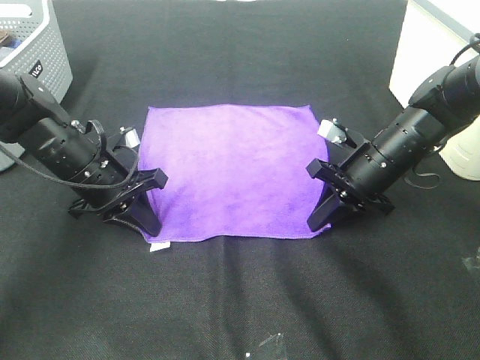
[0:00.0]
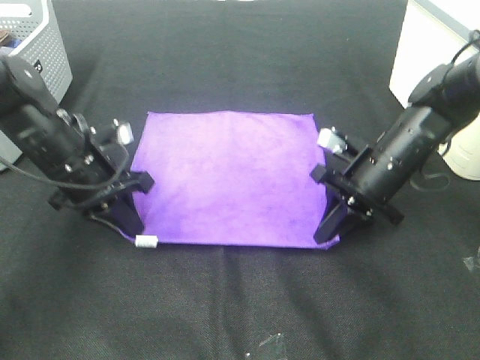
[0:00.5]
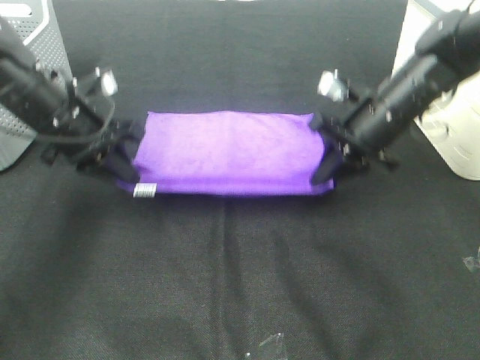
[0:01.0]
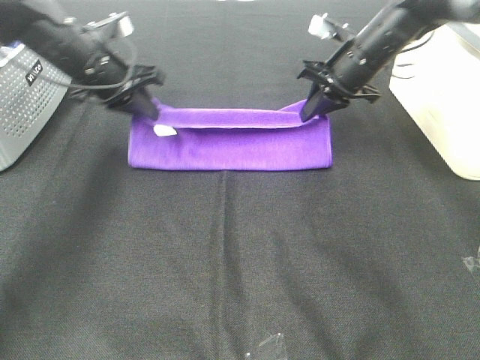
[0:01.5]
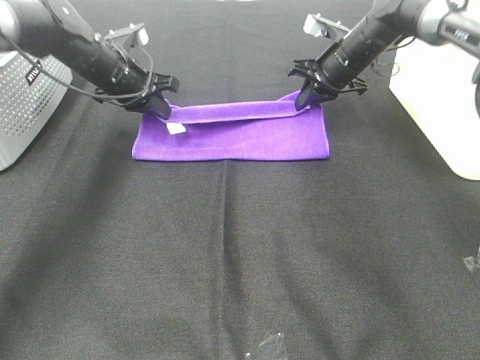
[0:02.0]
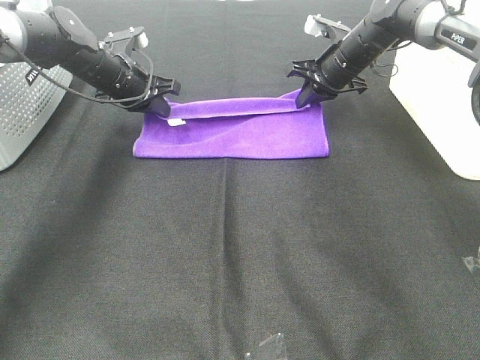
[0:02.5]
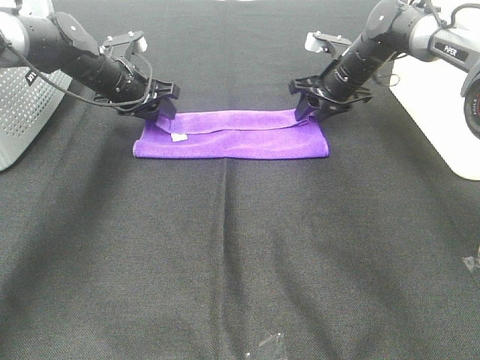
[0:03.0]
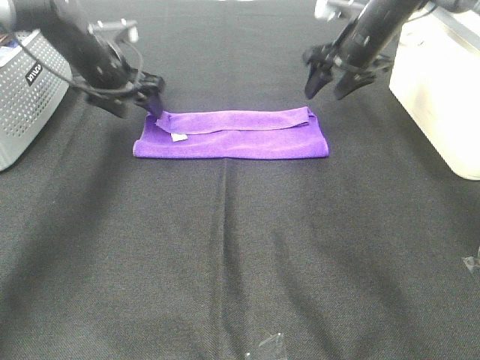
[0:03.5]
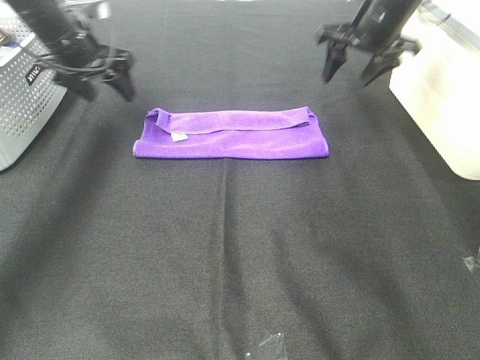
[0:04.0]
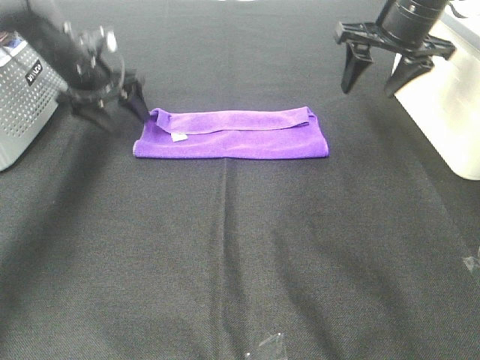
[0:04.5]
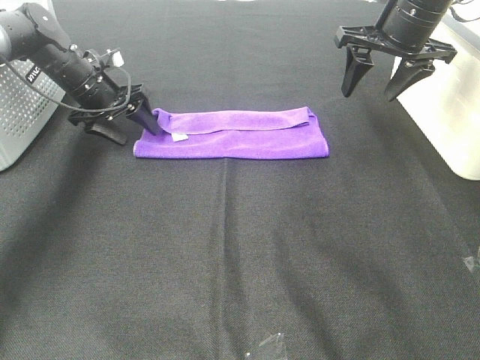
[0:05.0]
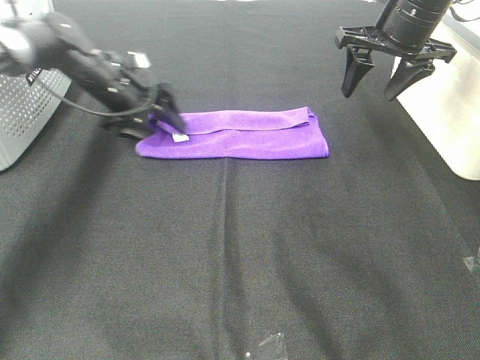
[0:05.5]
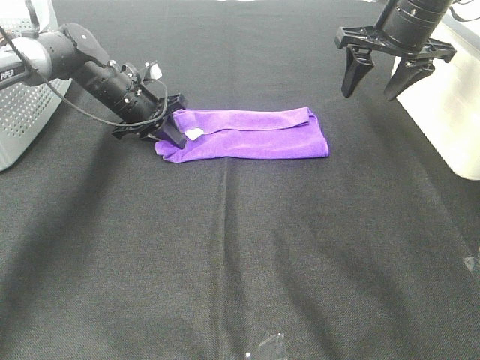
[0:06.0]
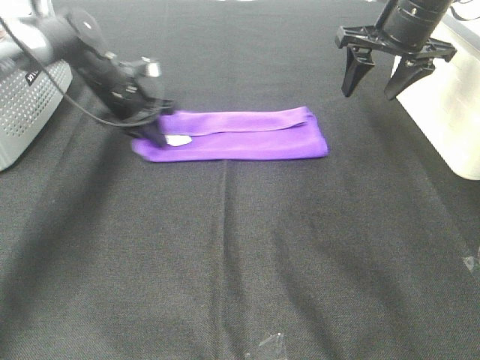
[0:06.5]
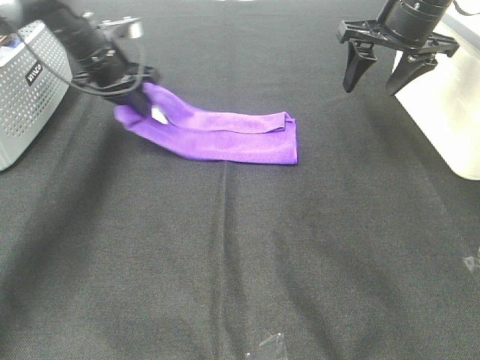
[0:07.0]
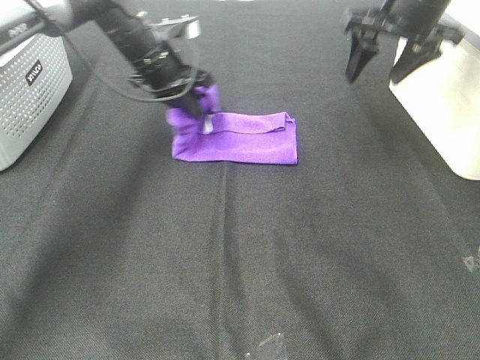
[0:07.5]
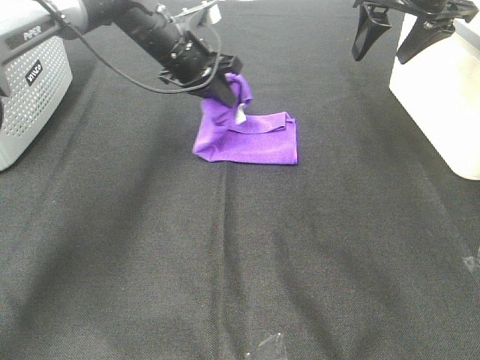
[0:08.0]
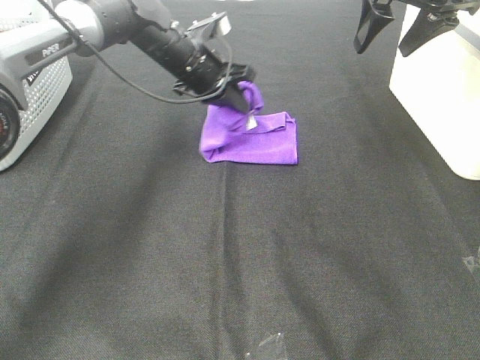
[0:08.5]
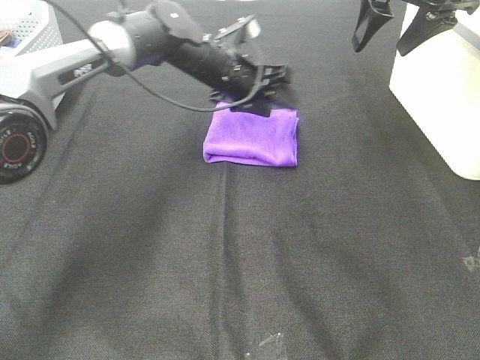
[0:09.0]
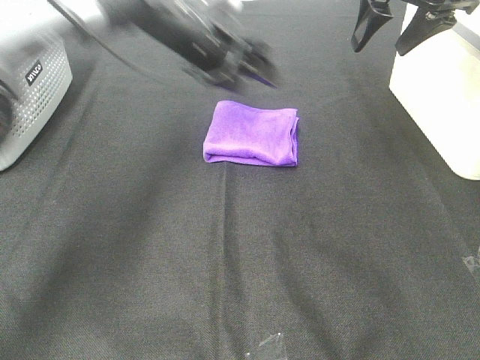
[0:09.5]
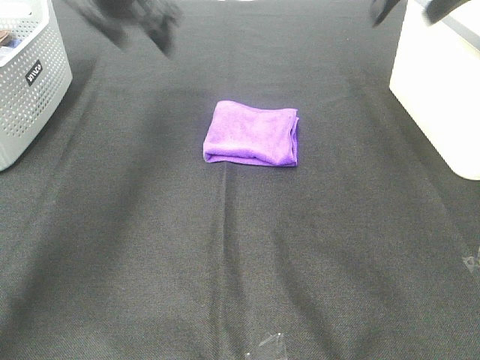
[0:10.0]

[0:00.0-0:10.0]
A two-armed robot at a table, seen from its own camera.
Task of the whole recording: Fold towels.
Step, 0:00.5 to 0:02.5: Left hand: fold the purple towel up.
Step, 0:00.5 to 0:02.5: Right hand: fold the purple towel up.
Step, 0:03.0 to 0:08.5: Left hand: fold the purple towel from left to right.
0:00.0 to 0:02.0: The grippers both shift forward by approximately 15 cm.
0:02.0 to 0:04.0: The left gripper travels upward and to the left by some 10 cm, and opens up. The right gripper heads upward, covering some 10 cm, and opens.
0:04.0 to 0:06.0: The left gripper is displaced downward and to the right by about 15 cm, and closes up; the right gripper heads backward, covering roughly 5 cm.
0:06.0 to 0:08.0: The left gripper travels upward and to the right by about 15 cm. Meanwhile the right gripper moves upward, roughly 5 cm.
0:08.0 to 0:10.0: The right gripper heads upward, covering approximately 5 cm. The left gripper heads upward and to the left, covering roughly 15 cm, and opens its fingers.

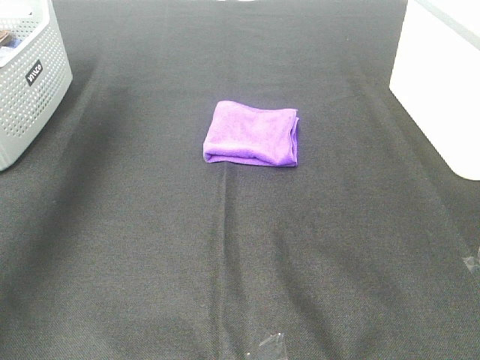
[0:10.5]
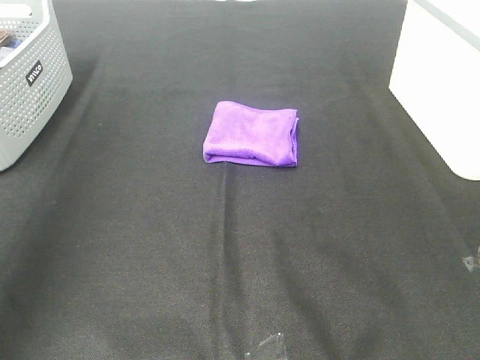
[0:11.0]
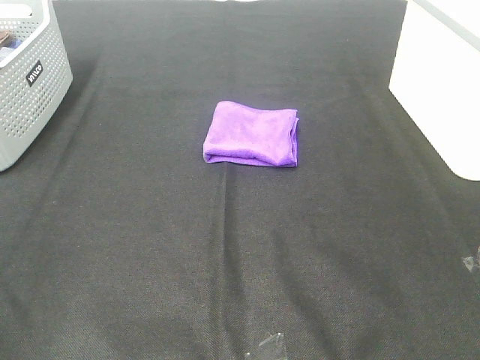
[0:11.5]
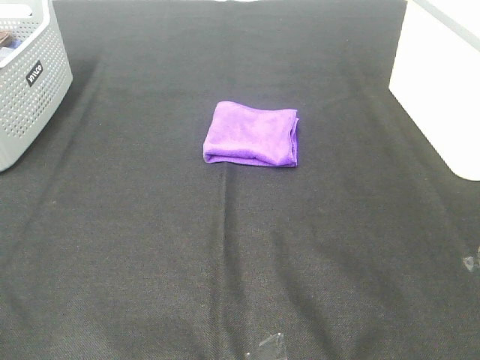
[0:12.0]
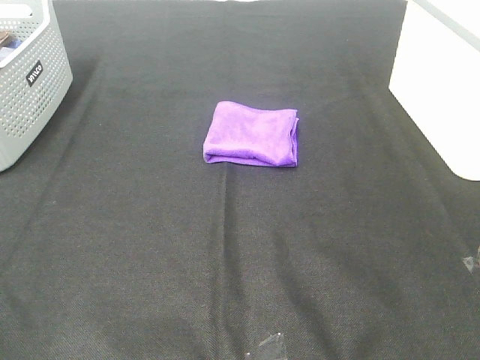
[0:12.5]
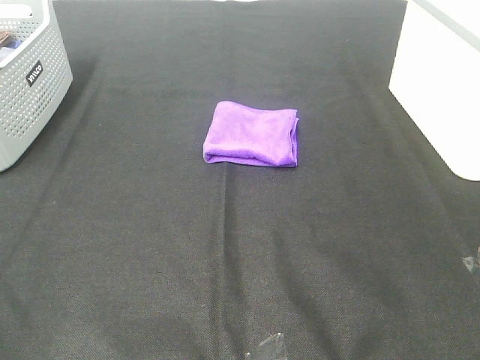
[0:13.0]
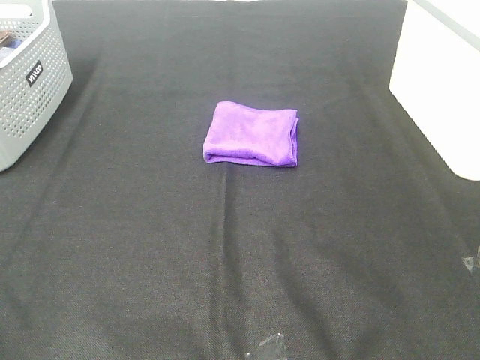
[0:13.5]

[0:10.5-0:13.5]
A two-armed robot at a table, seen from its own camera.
Task of the whole recording: Fold towels.
0:10.5 to 0:12.0: The left gripper heads backward, covering roughly 40 cm.

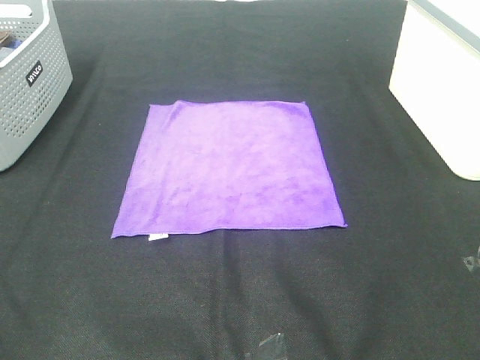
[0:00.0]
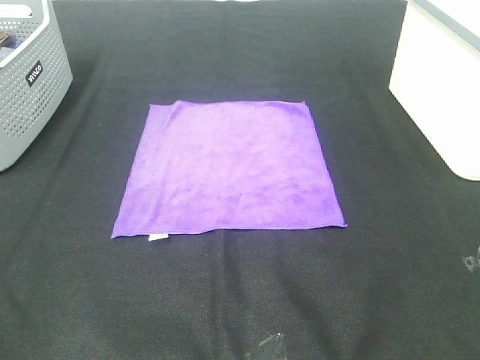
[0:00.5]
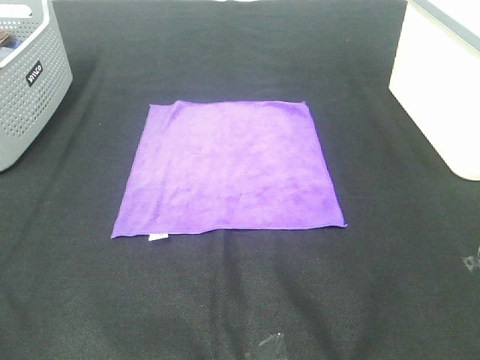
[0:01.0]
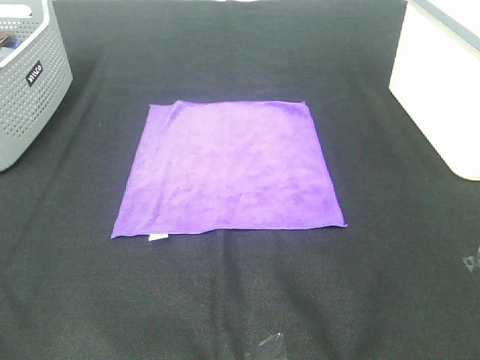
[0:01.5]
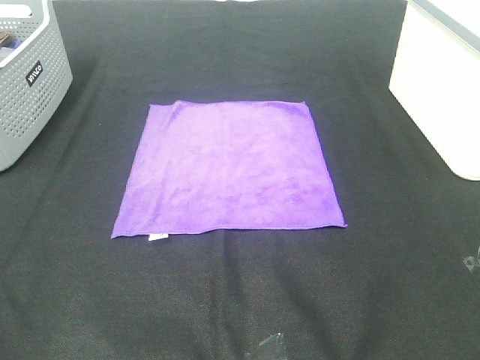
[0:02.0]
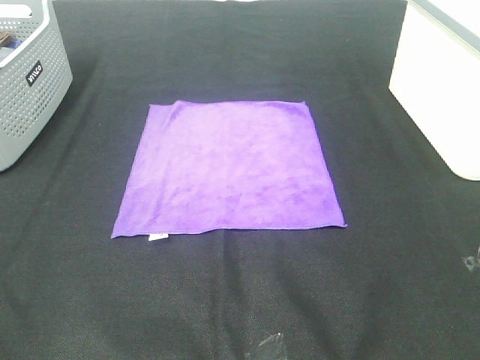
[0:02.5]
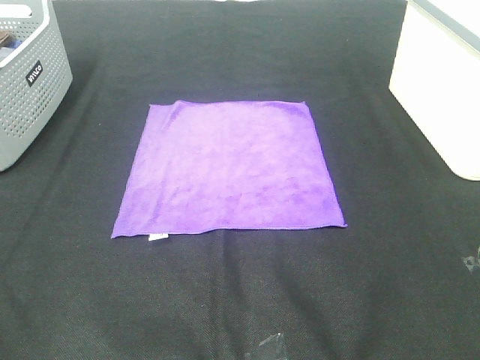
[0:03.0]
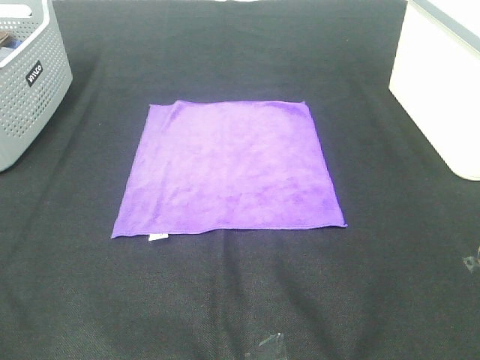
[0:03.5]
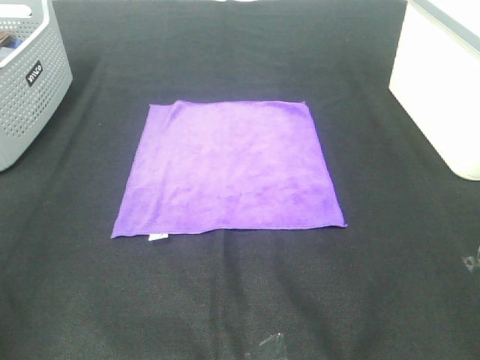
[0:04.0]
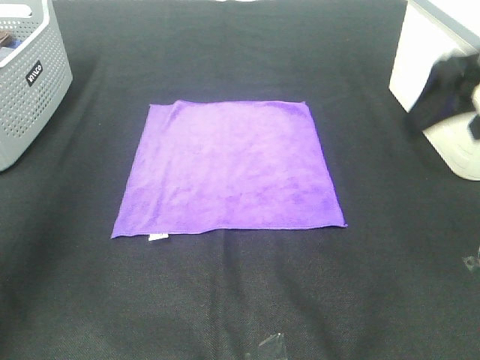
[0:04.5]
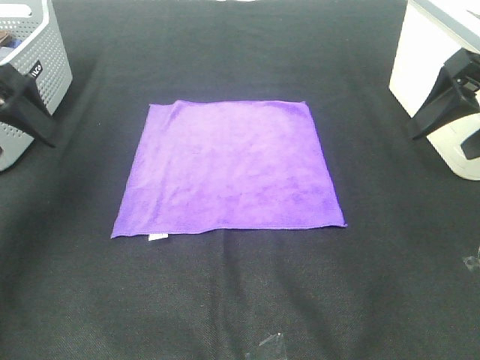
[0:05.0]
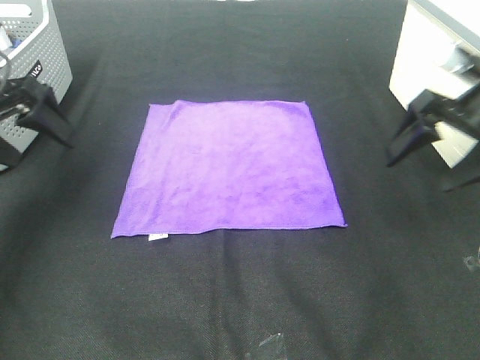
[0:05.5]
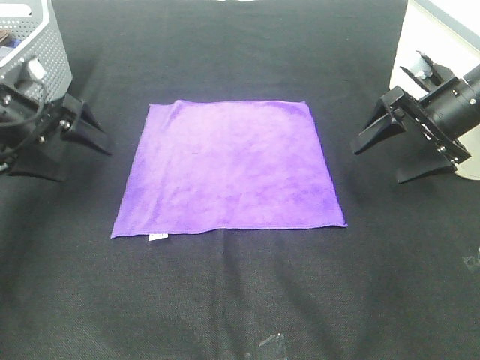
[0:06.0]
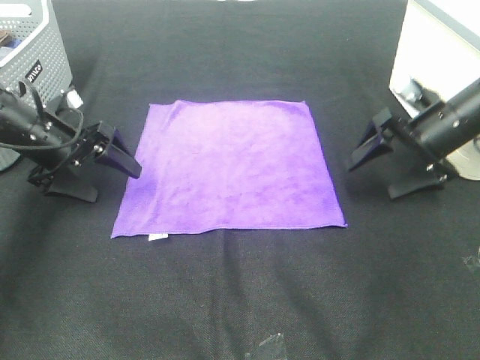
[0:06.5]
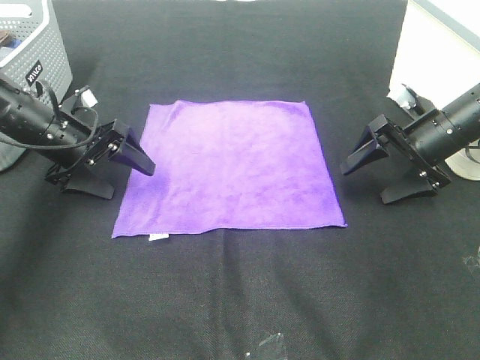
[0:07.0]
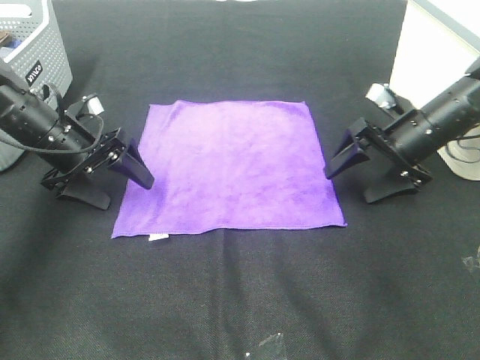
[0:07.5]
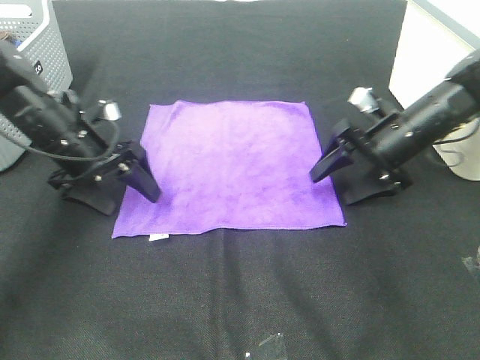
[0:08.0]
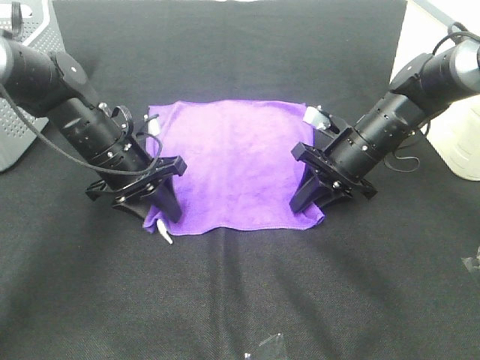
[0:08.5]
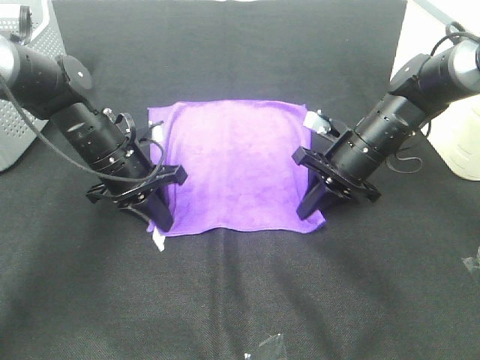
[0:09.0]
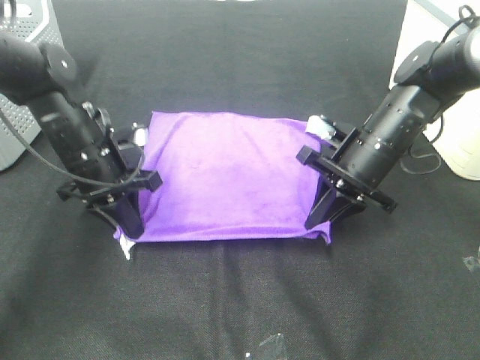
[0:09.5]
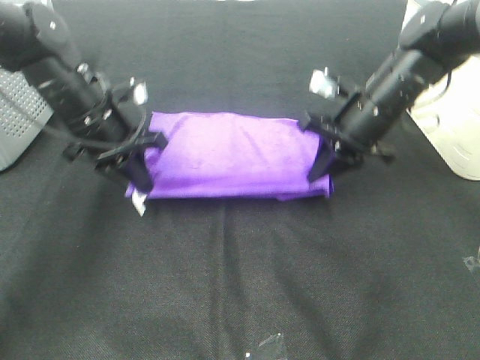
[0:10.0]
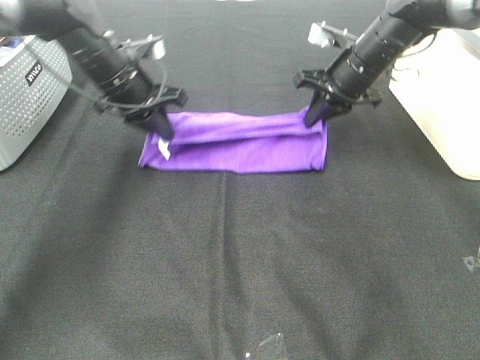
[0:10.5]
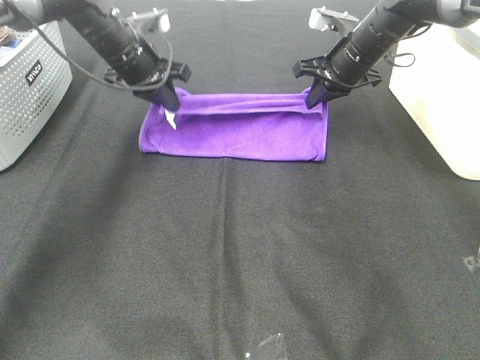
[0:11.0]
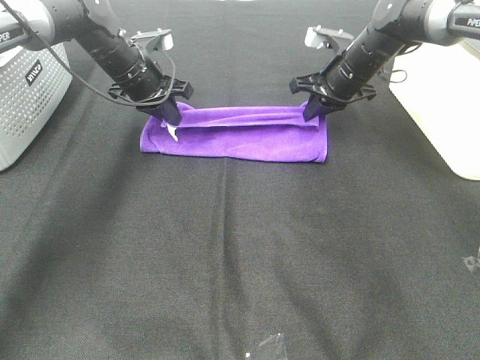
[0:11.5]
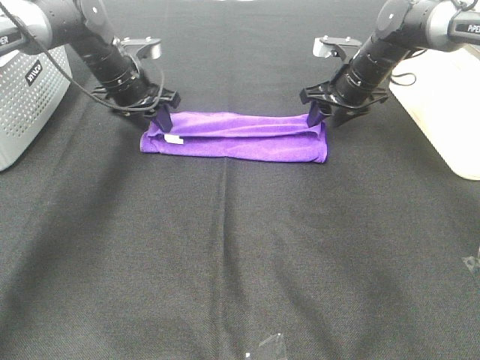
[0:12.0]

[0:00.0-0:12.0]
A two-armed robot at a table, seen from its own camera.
Task of the whole recording: Fold towels.
Step, 0:00.0 to 0:08.5: Left hand: grab the bottom left corner of purple towel.
Step, 0:00.0 to 0:08.5: Right hand: grab the bottom right corner of purple towel.
Step, 0:09.0 to 0:11.5: Left hand: fold the purple towel up.
Step, 0:09.0 to 0:11.5: Right hand: fold the purple towel up.
0:00.0 to 0:02.0: Both grippers stay about where they are.
0:04.0 to 0:06.0: Both grippers travel together forward and downward, some 30 cm.
0:06.0 to 0:08.0: The right gripper shifts about 10 cm downward and to the left. The left gripper shifts approximately 10 cm to the right and downward.
0:08.0 to 0:10.0: The two grippers go some 5 cm upward. The right gripper closes its fingers. Meanwhile the left gripper closes its fingers.
0:10.0 to 0:12.0: Both grippers move forward, approximately 15 cm. The right gripper opens its fingers. The left gripper opens its fingers.
